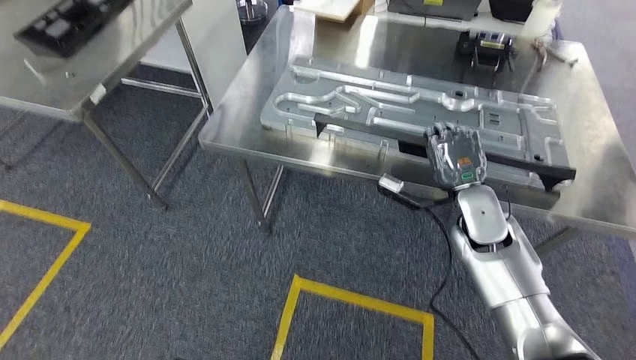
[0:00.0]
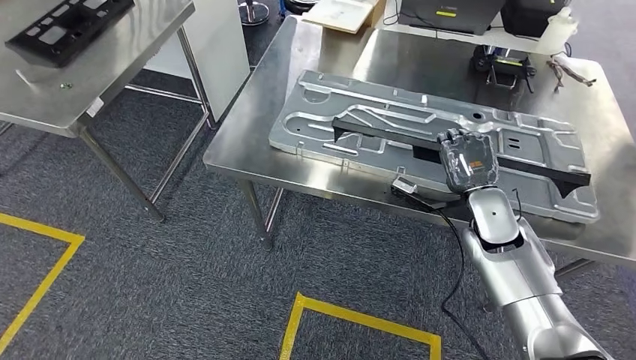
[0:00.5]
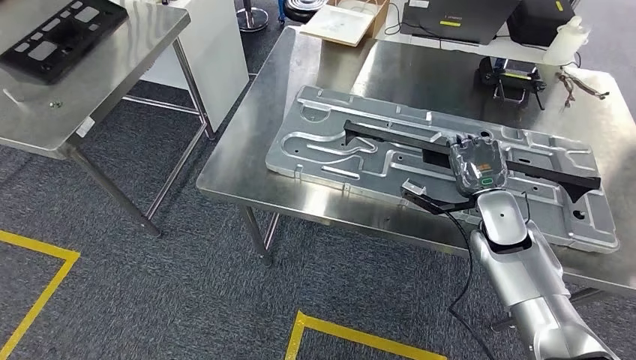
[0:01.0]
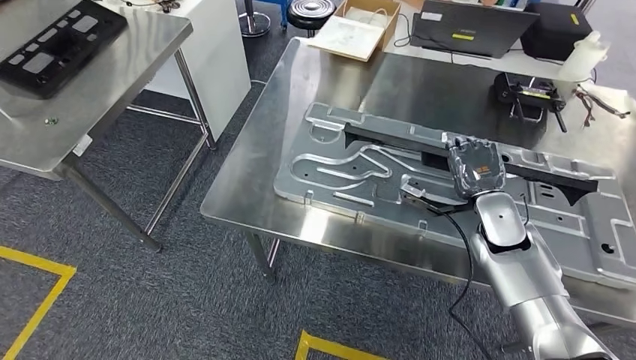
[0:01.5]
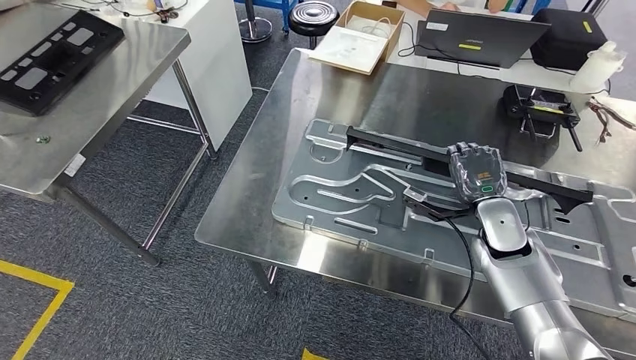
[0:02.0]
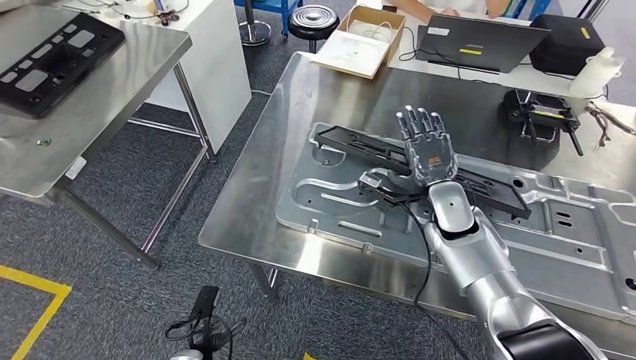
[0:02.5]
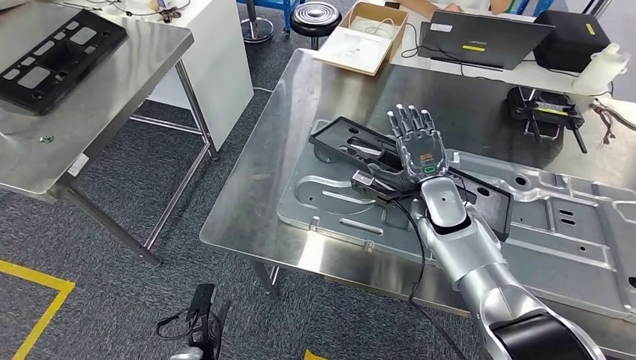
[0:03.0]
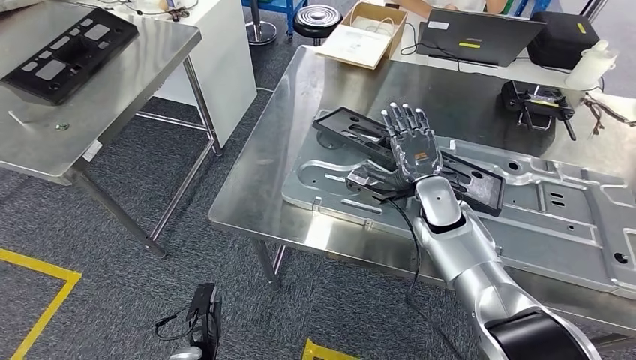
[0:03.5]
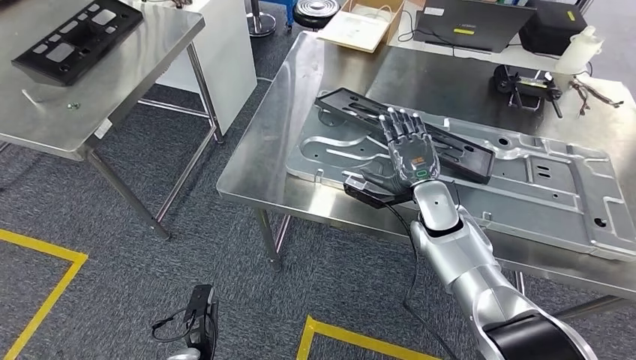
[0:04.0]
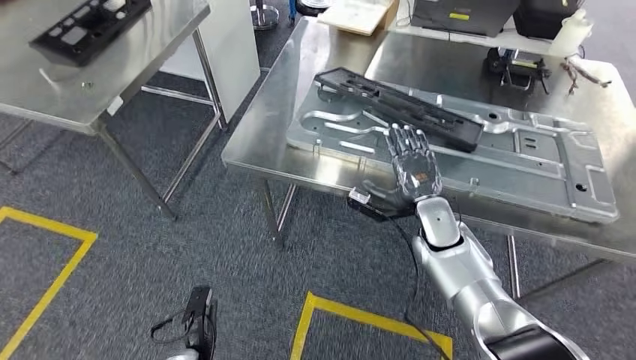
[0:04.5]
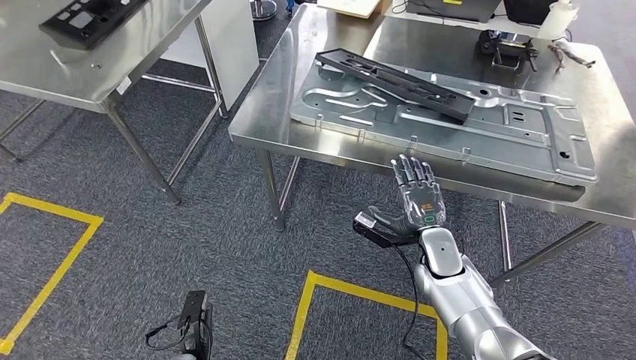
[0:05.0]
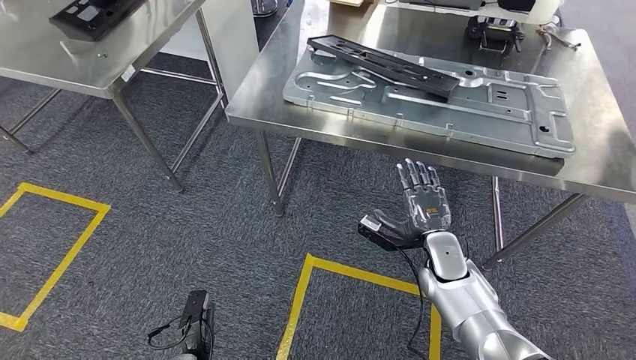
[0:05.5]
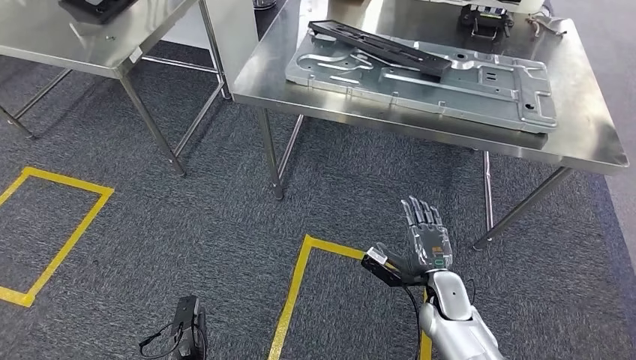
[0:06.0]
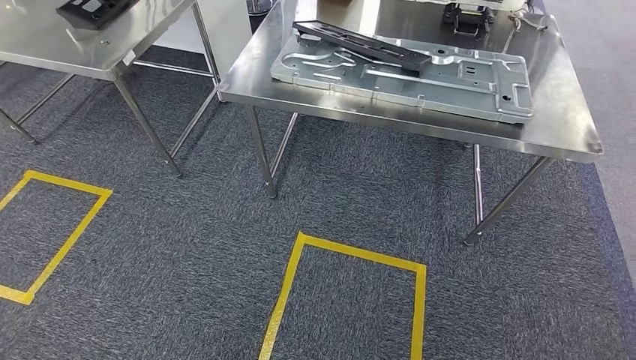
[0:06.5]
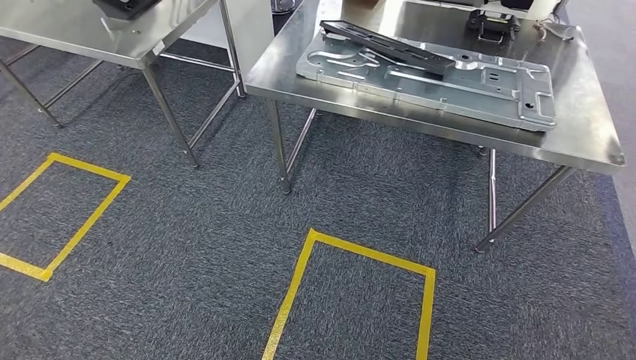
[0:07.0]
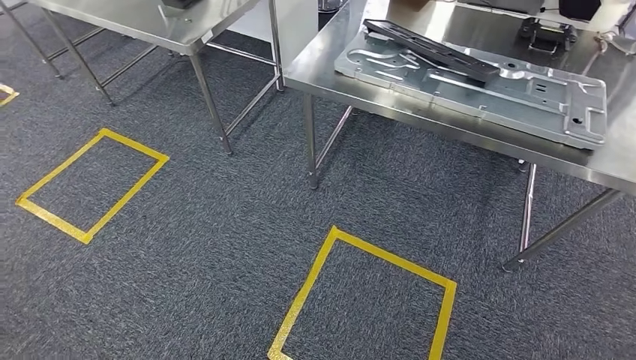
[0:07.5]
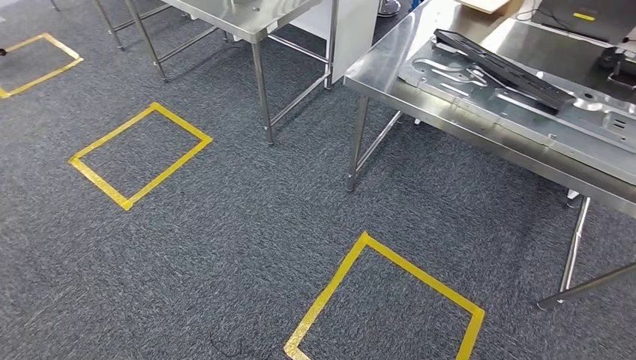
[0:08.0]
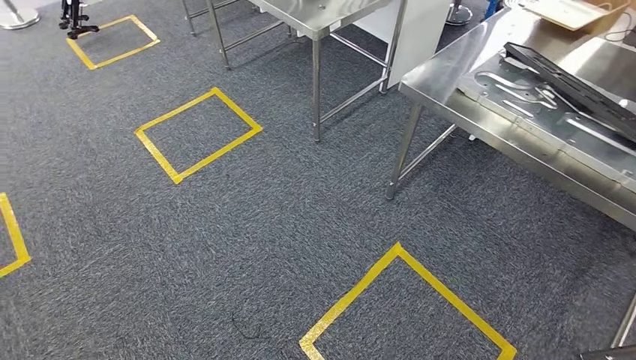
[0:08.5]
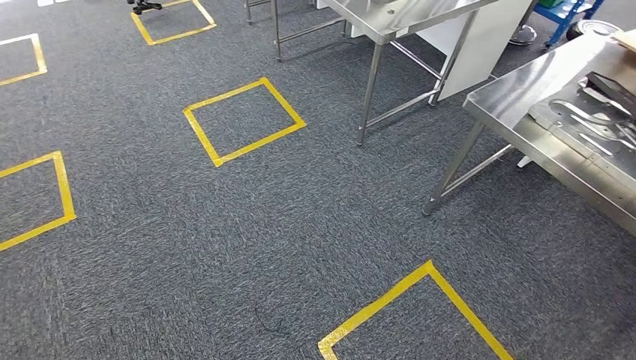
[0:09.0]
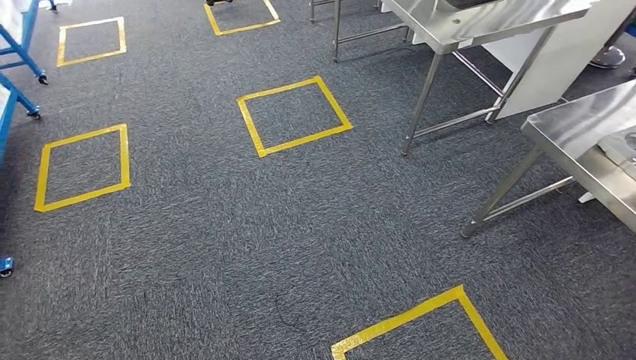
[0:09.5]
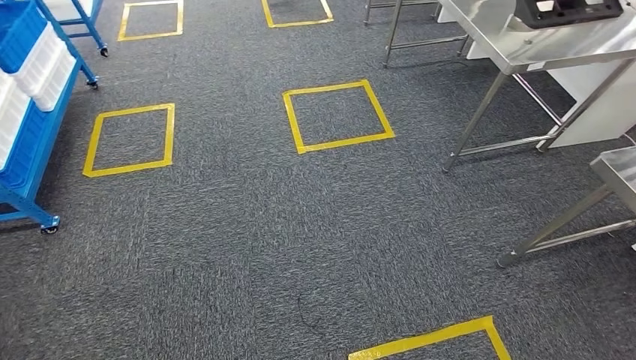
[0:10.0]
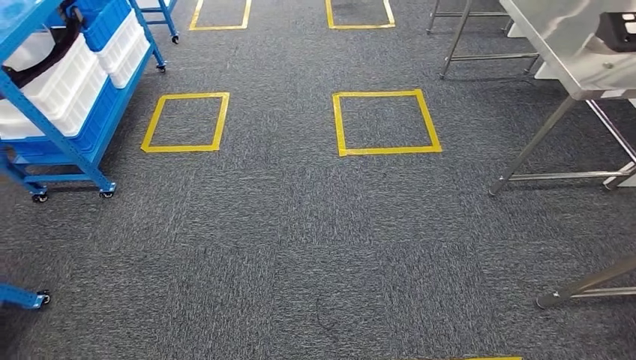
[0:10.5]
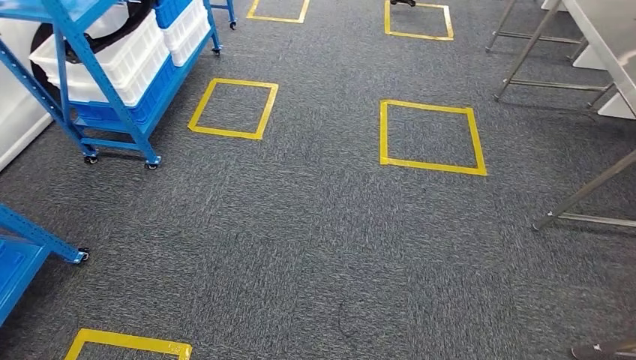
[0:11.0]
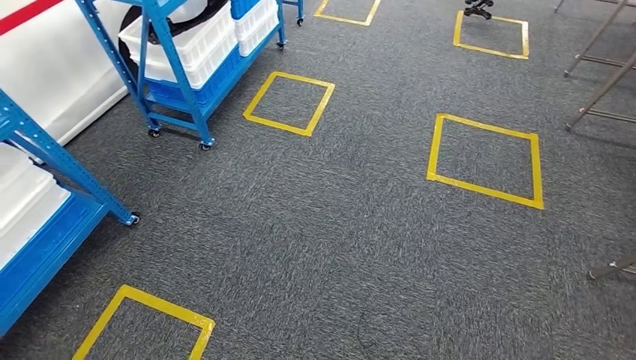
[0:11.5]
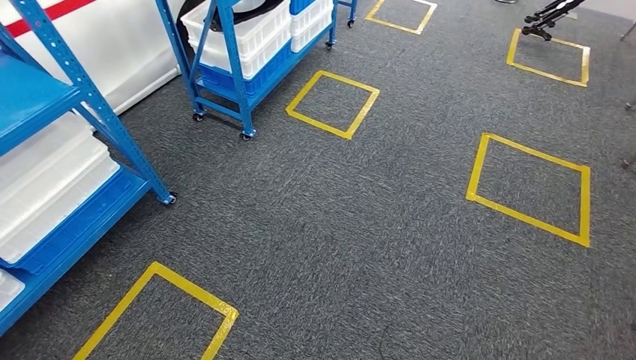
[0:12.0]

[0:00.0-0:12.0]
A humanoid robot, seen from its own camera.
Step, 0:00.5 to 0:05.0: Insert the large material into the corresponding hole on the workbench.

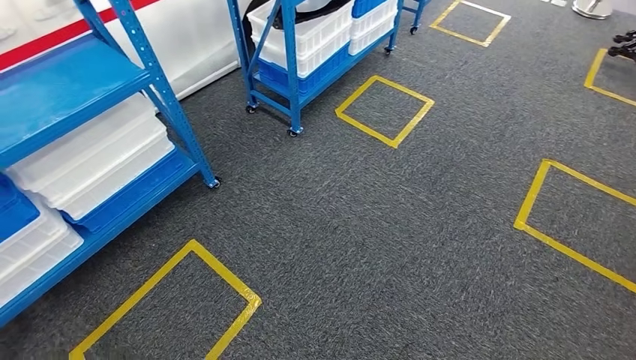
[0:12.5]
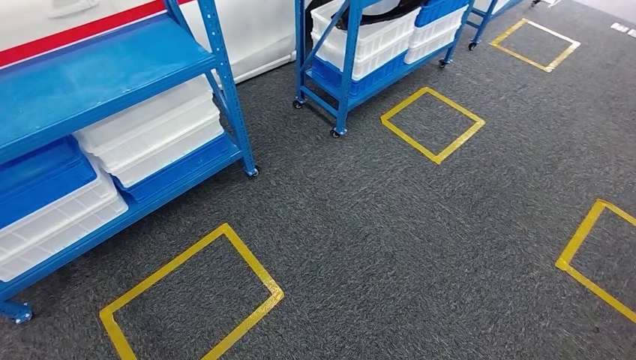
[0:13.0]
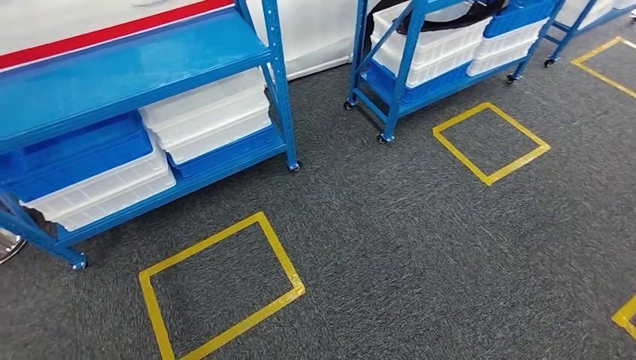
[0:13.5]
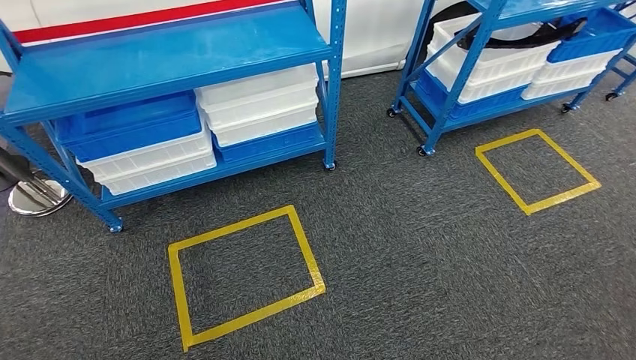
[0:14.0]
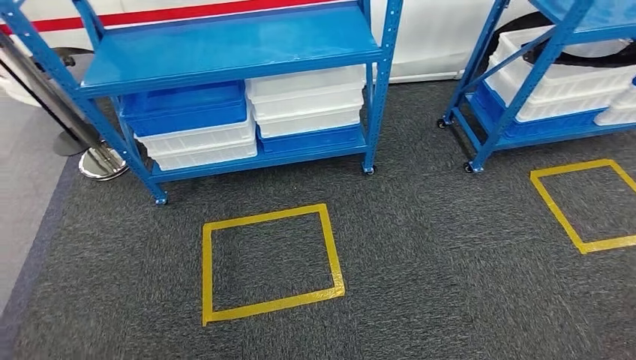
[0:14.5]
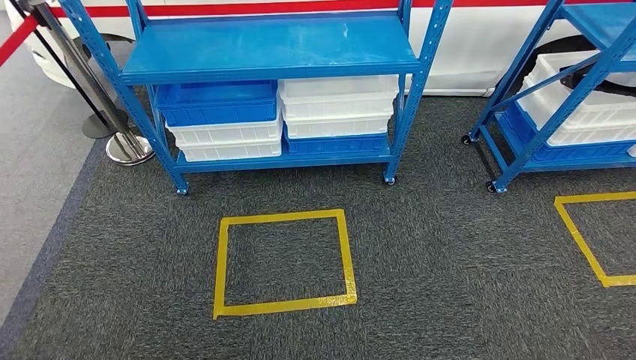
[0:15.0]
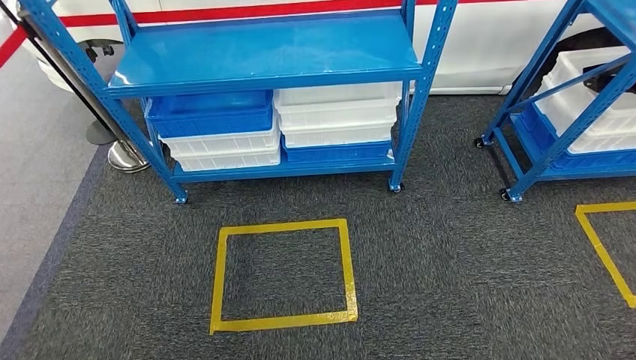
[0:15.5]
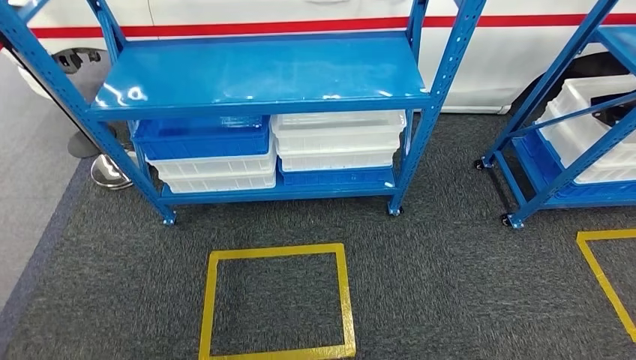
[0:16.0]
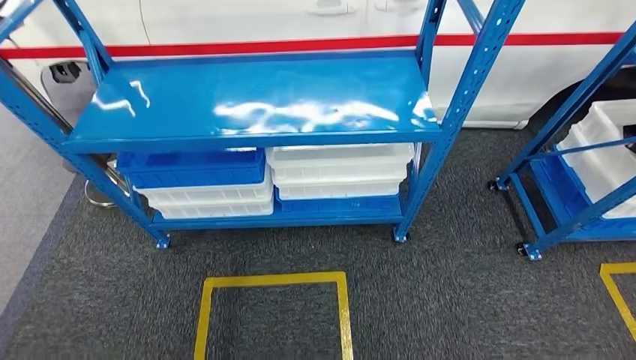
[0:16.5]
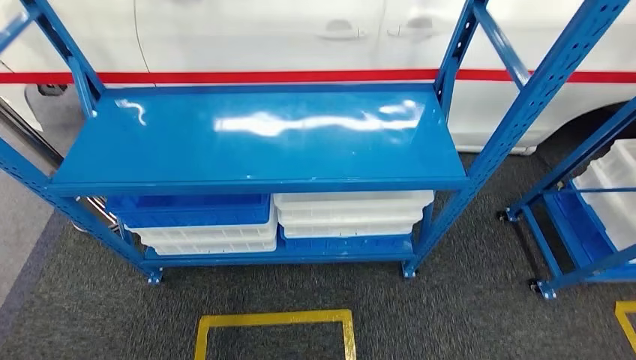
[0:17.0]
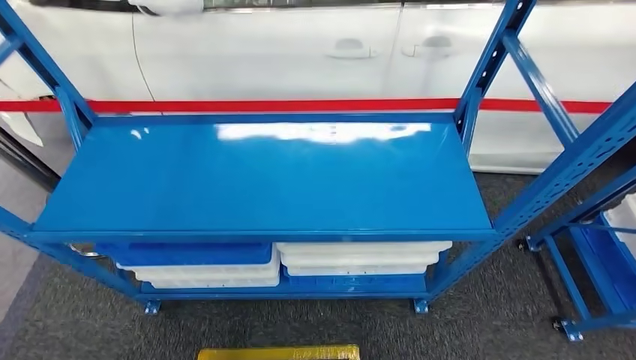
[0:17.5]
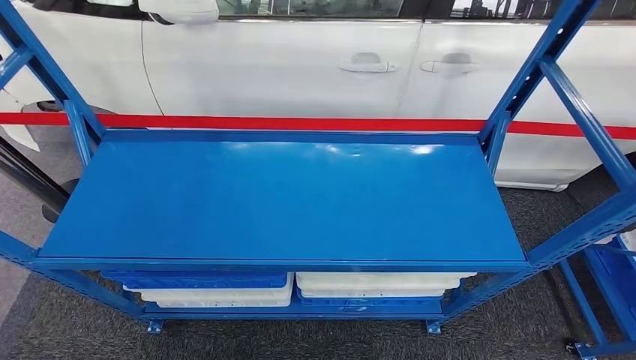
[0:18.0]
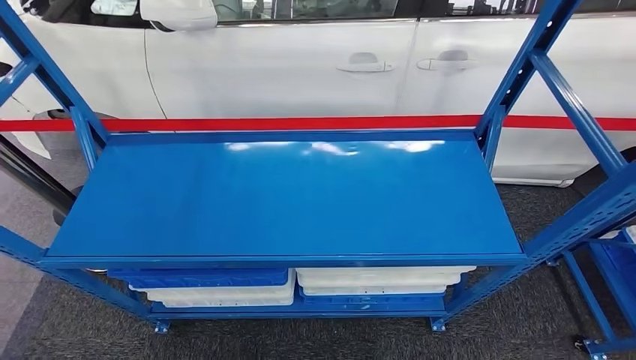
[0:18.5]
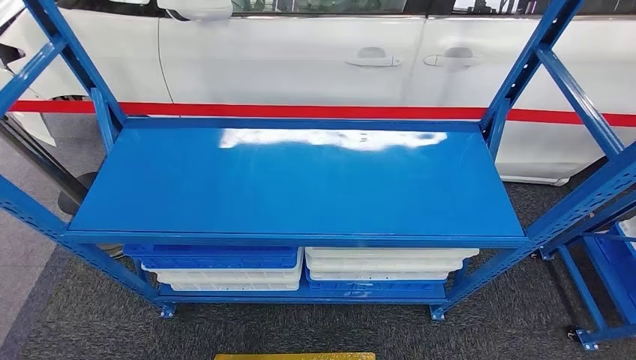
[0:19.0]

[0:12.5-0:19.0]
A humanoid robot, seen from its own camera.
Step, 0:12.5 to 0:19.0: Move to the initial position of the shelf.

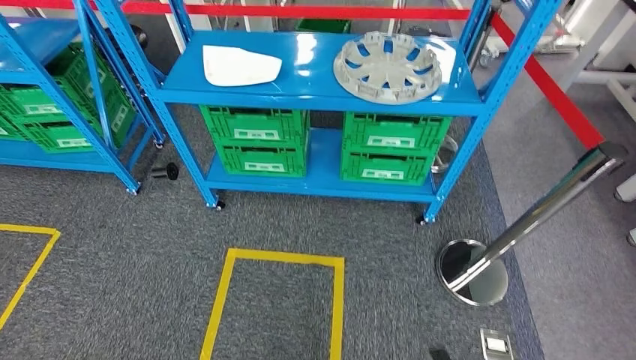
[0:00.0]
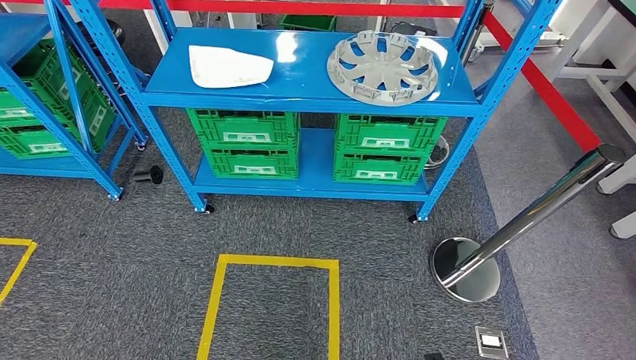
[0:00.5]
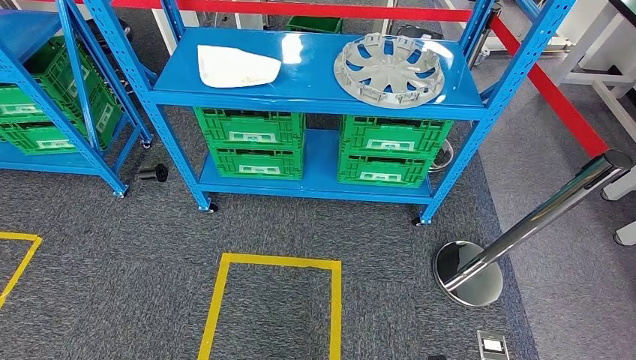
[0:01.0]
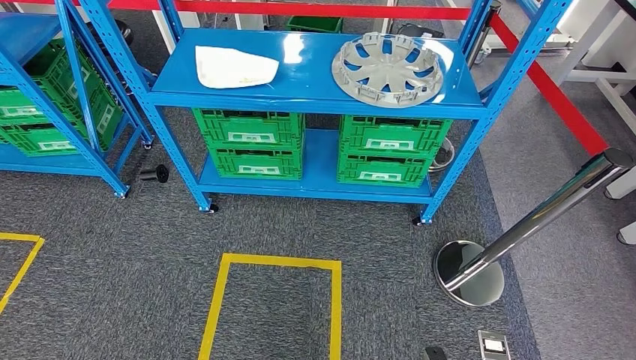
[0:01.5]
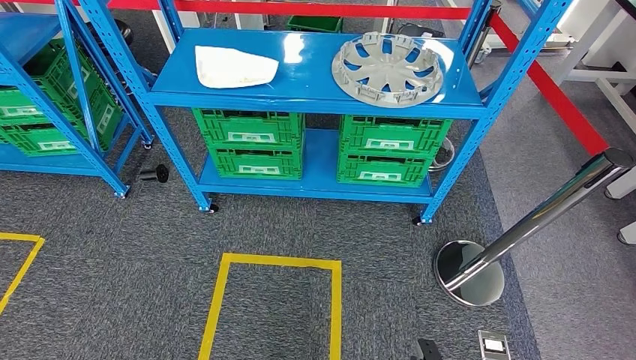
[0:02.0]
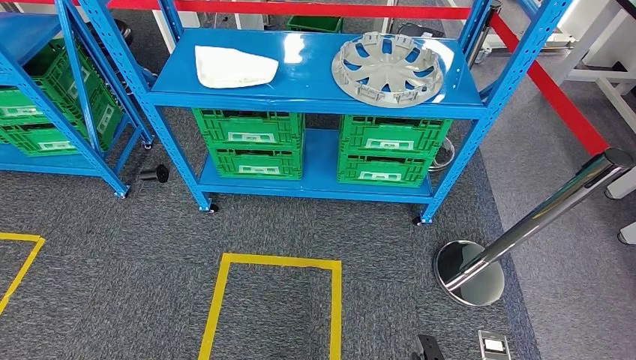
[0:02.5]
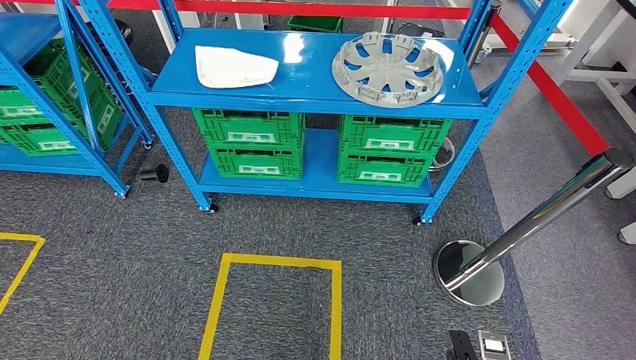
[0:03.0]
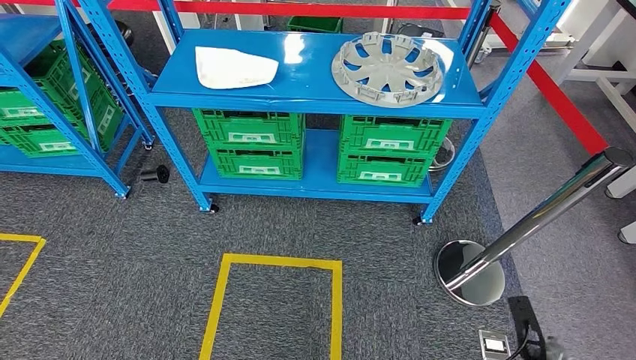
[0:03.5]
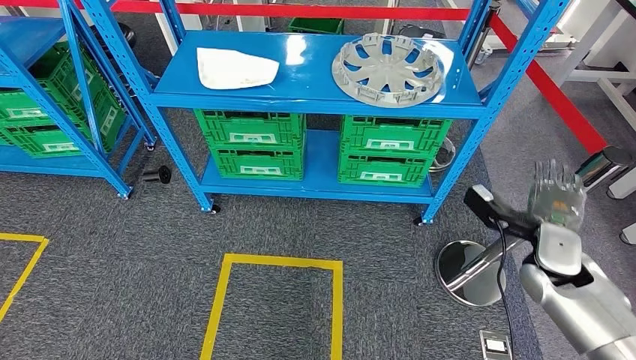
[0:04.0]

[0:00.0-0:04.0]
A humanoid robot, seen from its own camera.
0:02.0 to 0:04.0: The right hand is displaced forward, upward and to the right by approximately 35 cm.
